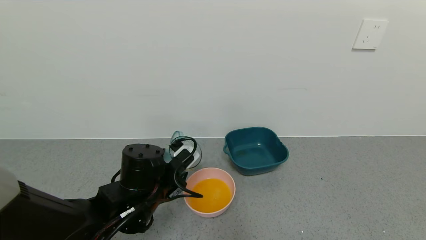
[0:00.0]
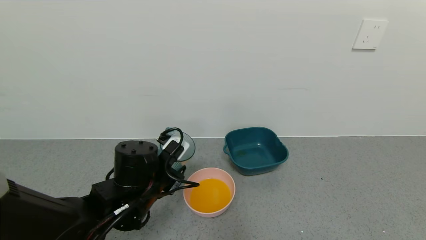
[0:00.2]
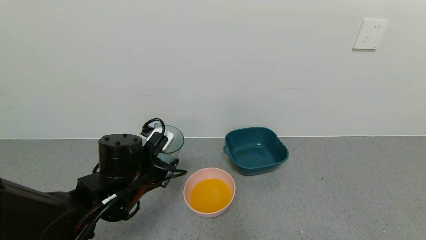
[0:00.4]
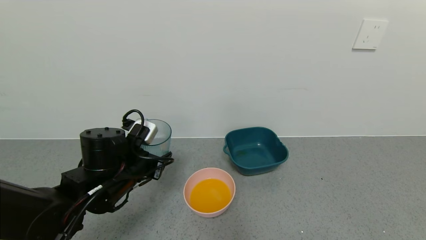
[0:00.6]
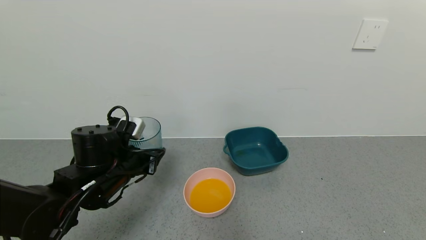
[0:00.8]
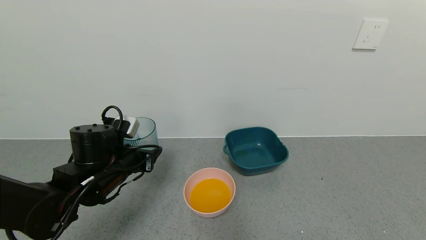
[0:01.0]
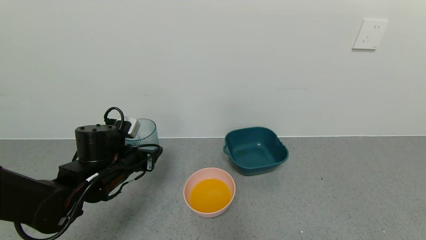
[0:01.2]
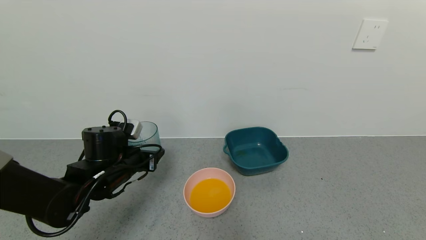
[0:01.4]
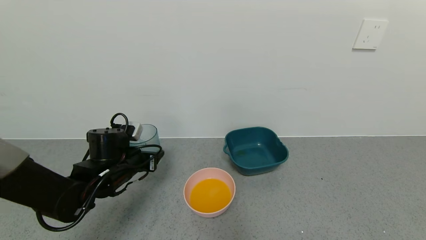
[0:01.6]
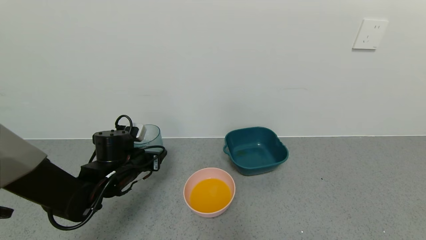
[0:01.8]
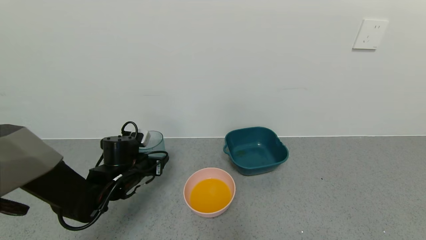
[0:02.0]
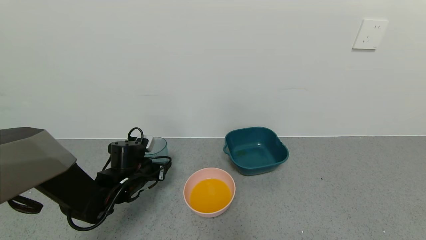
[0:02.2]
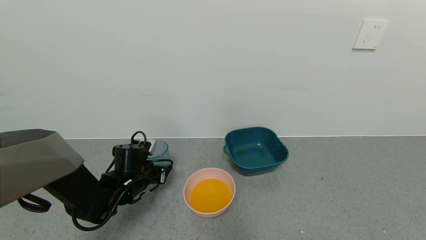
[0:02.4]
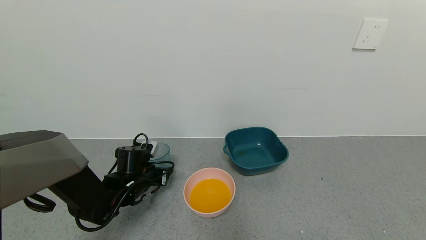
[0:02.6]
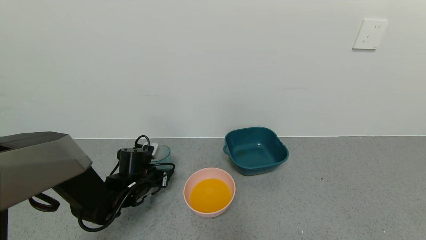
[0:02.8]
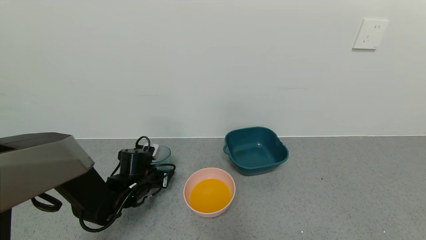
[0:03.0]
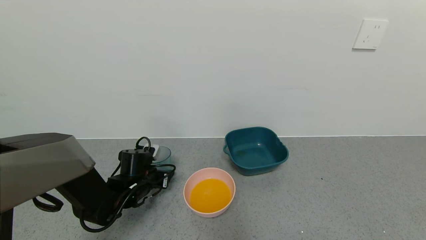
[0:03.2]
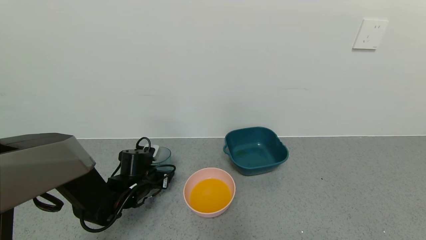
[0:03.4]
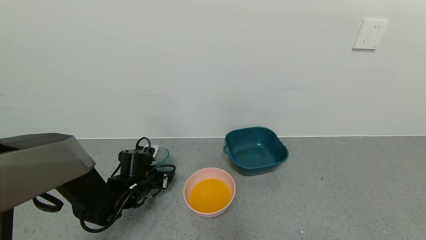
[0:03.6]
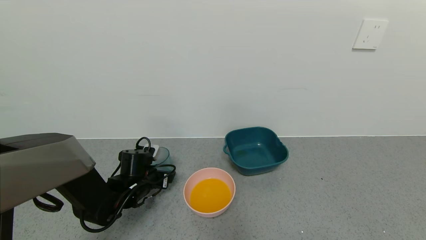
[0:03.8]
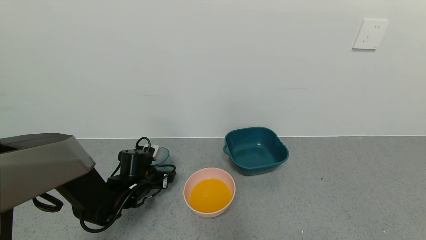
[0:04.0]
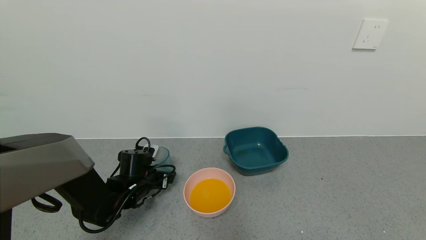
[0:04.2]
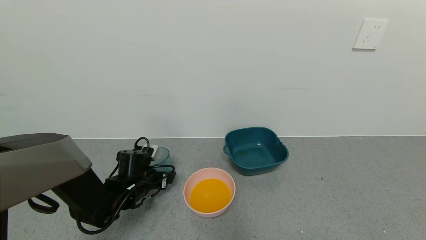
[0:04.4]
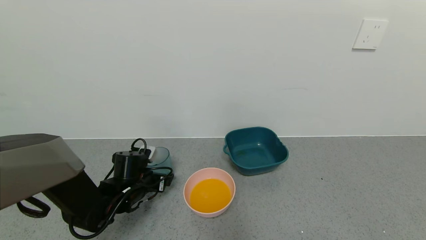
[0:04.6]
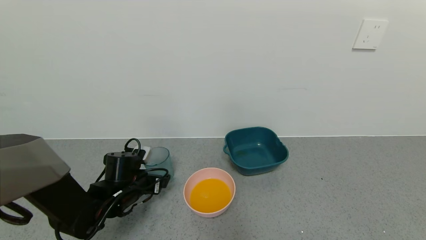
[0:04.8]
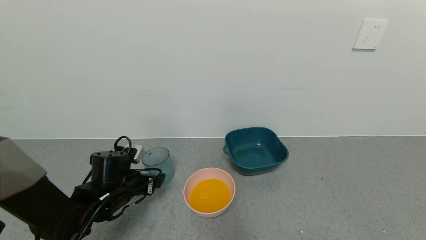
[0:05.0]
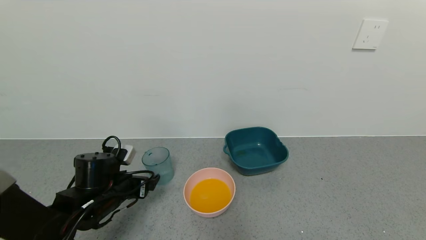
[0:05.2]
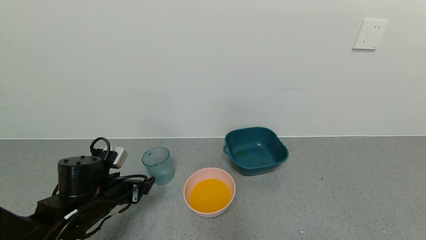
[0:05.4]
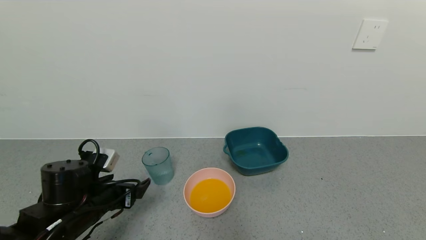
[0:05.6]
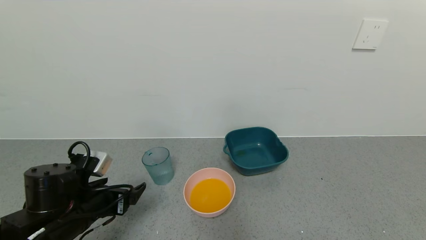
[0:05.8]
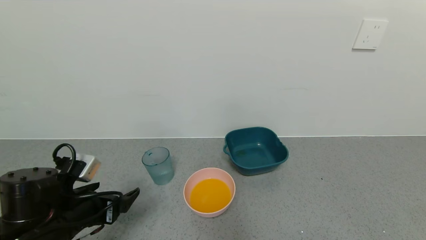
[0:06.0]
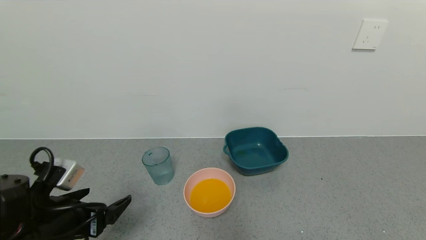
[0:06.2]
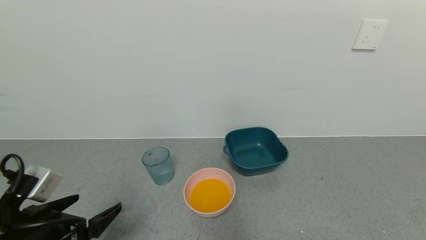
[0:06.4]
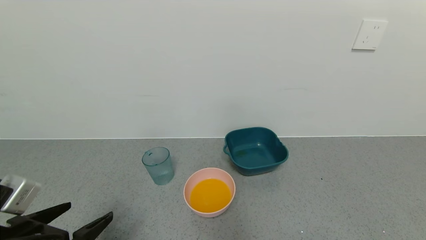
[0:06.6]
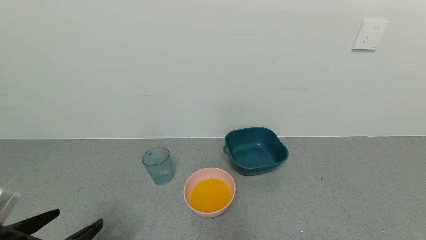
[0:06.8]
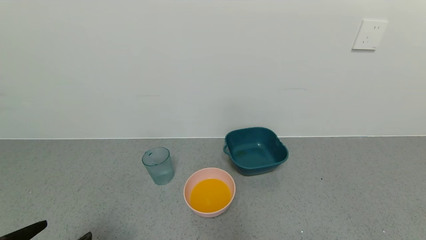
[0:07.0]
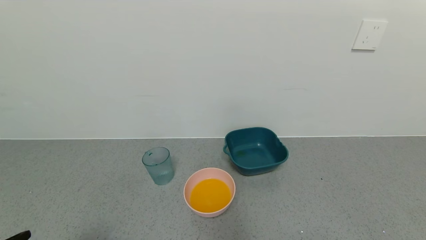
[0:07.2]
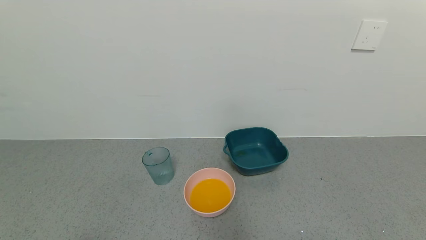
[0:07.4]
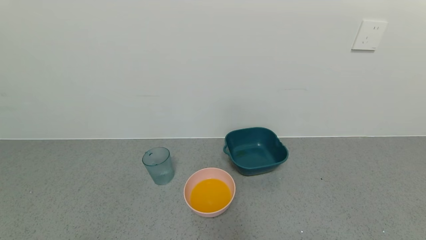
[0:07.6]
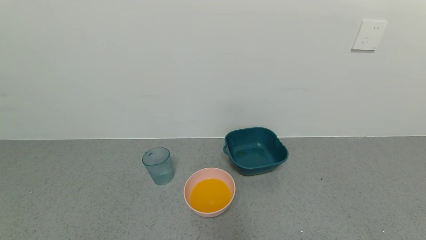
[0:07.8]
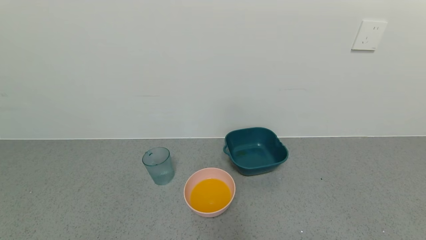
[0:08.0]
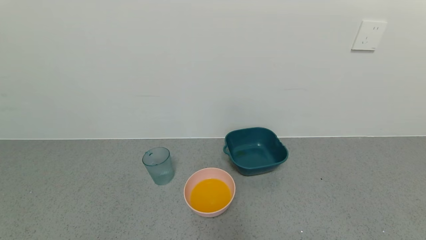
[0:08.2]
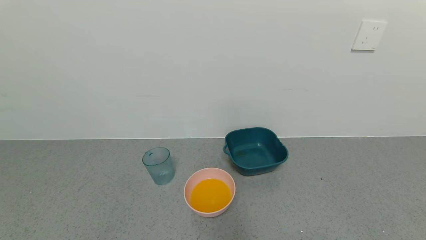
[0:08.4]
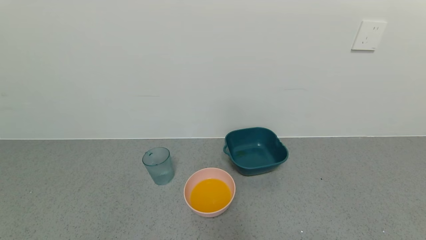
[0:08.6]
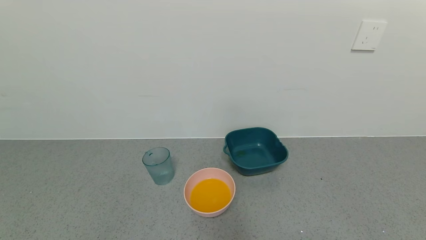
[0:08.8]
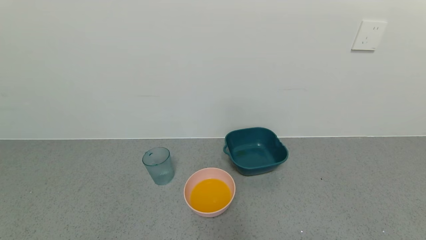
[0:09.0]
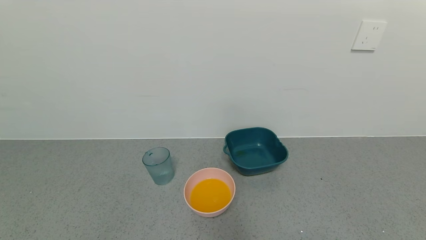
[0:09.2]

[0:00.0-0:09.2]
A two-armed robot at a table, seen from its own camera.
Task of the whole recording: use a gripper to pick up the cup and pour the liquid into a bowl or tray.
Step, 0:00.0 to 0:05.0: Place the glass cup with the left gripper.
0:00.0 to 0:01.6: The left gripper moves to the left and forward, some 10 cm.
0:01.6 to 0:03.0: The left gripper moves downward, some 10 cm.
0:03.0 to 0:04.6: The left gripper opens.
0:04.6 to 0:06.2: The left gripper travels backward and upward by some 20 cm.
0:06.2 to 0:07.6: The left gripper heads backward, covering about 15 cm.

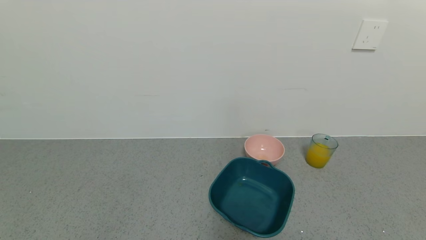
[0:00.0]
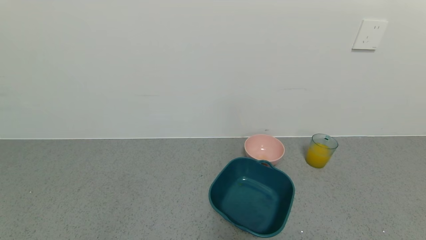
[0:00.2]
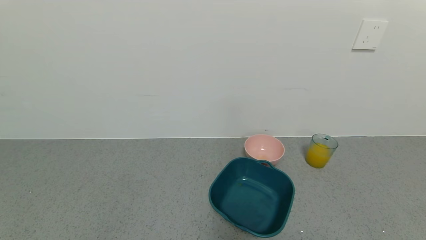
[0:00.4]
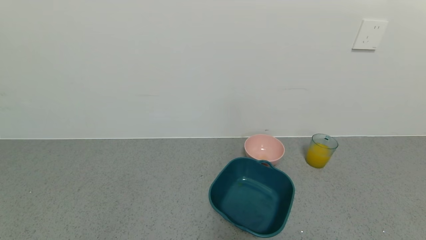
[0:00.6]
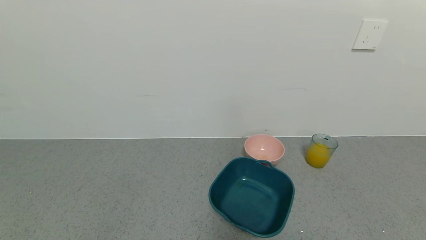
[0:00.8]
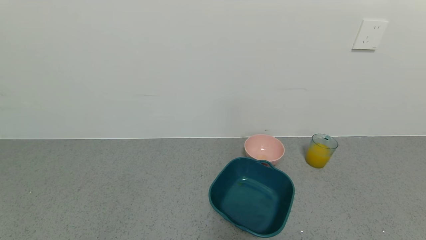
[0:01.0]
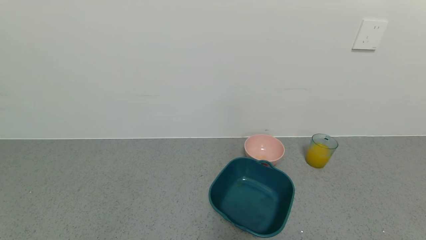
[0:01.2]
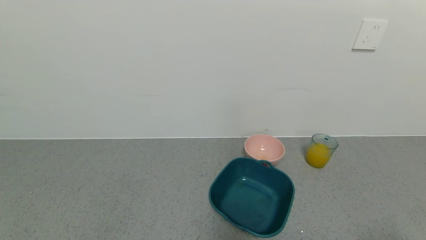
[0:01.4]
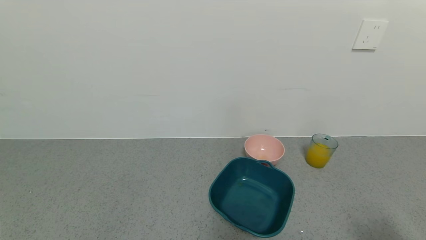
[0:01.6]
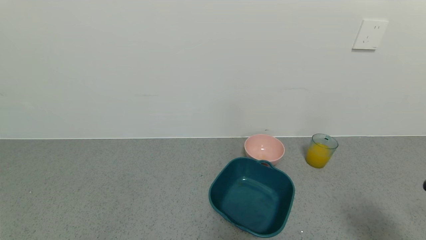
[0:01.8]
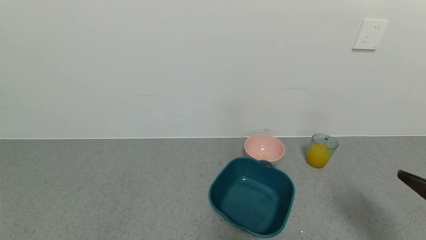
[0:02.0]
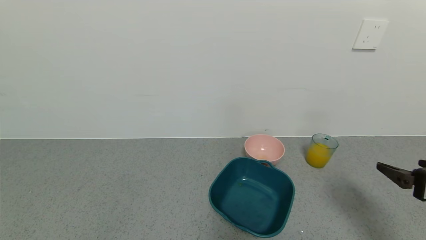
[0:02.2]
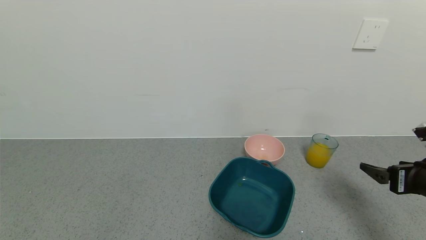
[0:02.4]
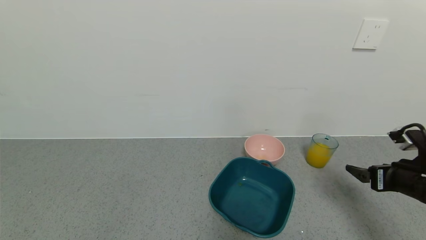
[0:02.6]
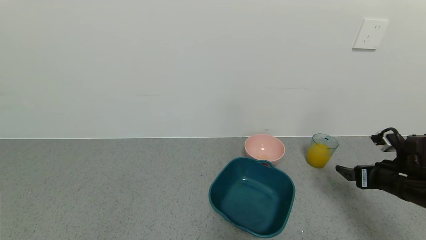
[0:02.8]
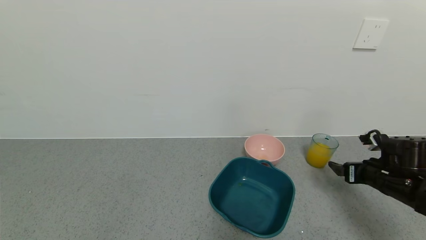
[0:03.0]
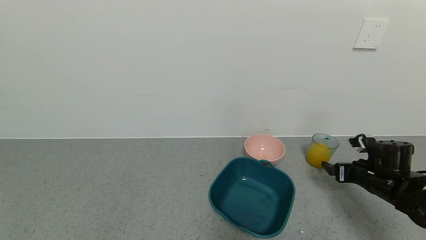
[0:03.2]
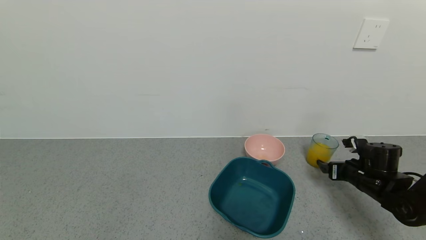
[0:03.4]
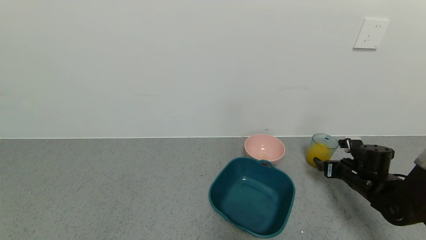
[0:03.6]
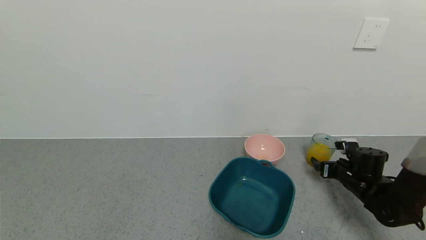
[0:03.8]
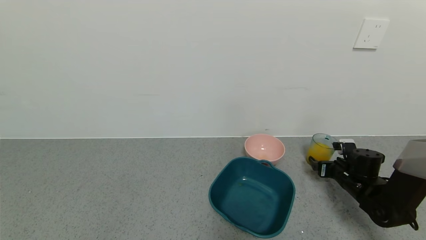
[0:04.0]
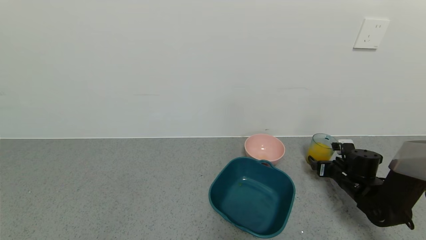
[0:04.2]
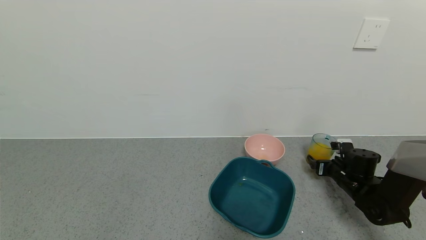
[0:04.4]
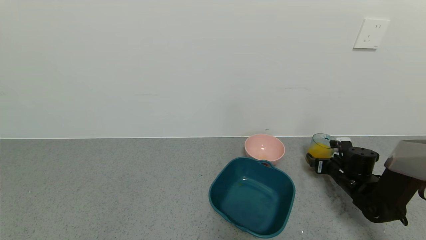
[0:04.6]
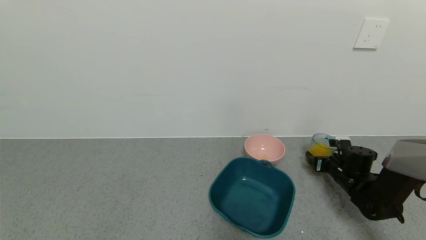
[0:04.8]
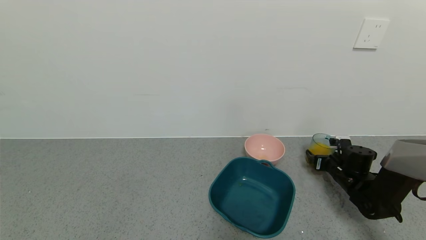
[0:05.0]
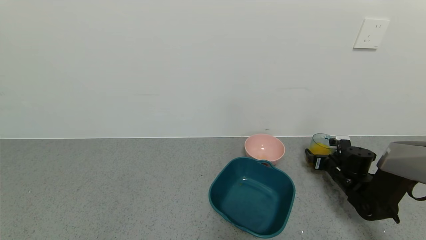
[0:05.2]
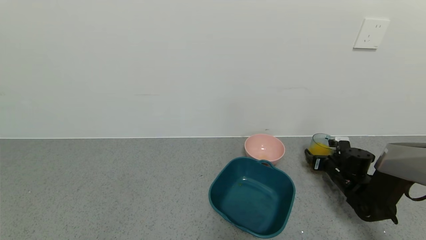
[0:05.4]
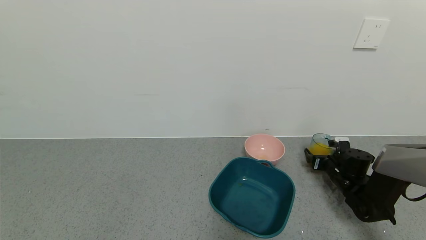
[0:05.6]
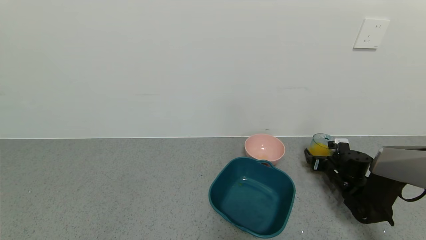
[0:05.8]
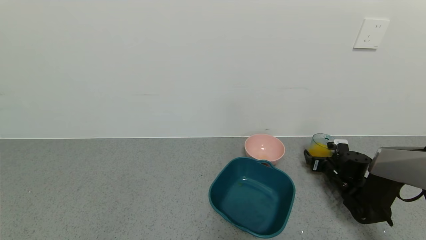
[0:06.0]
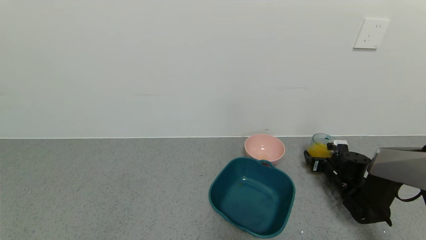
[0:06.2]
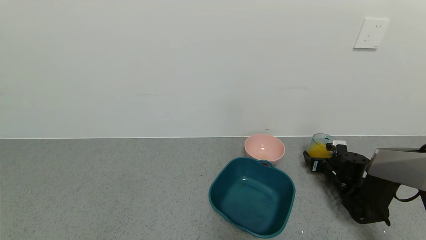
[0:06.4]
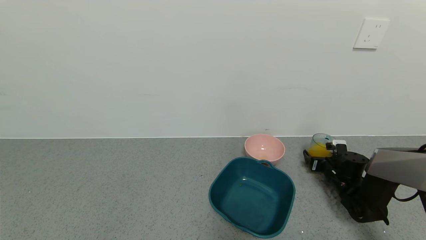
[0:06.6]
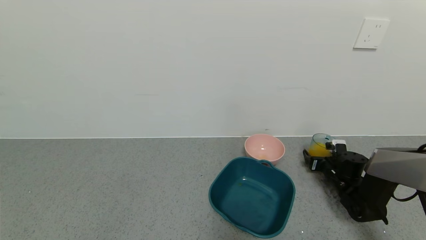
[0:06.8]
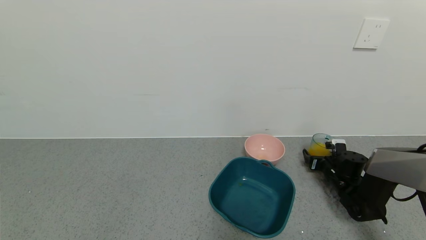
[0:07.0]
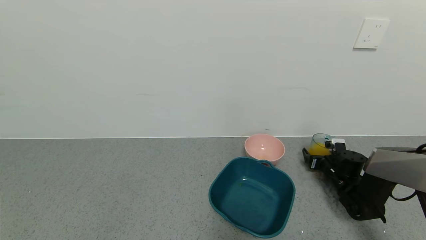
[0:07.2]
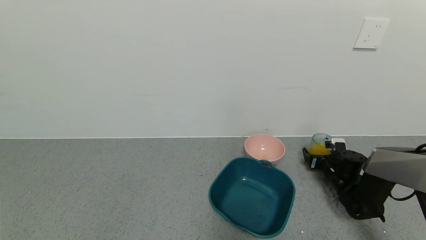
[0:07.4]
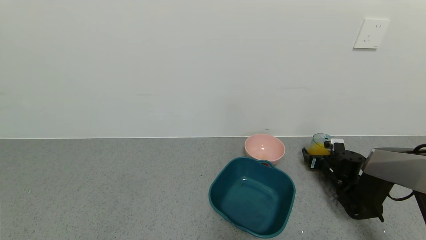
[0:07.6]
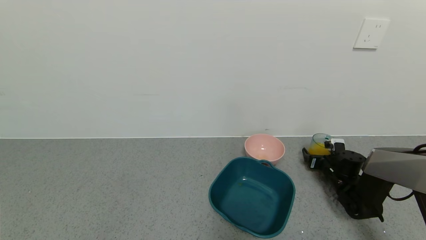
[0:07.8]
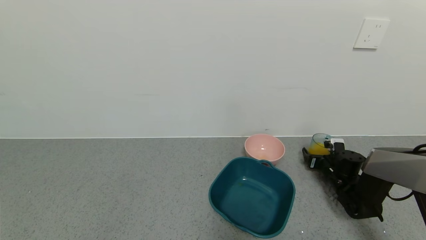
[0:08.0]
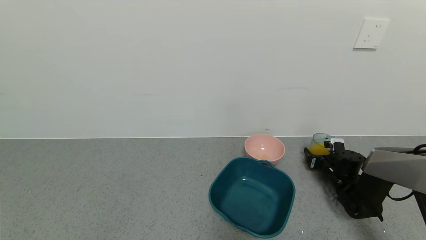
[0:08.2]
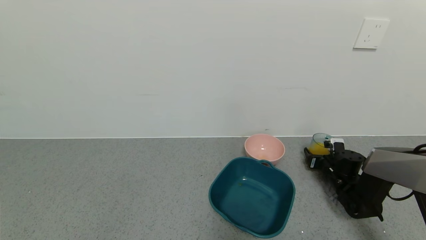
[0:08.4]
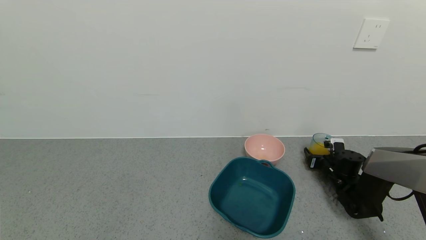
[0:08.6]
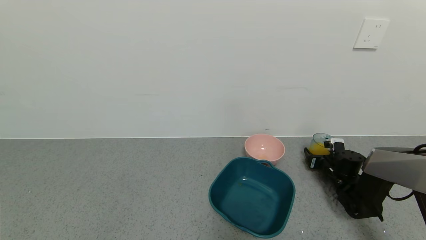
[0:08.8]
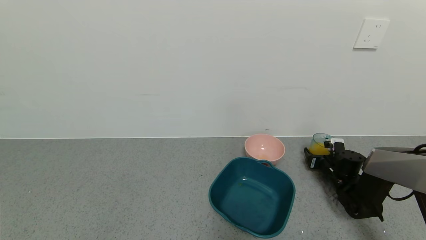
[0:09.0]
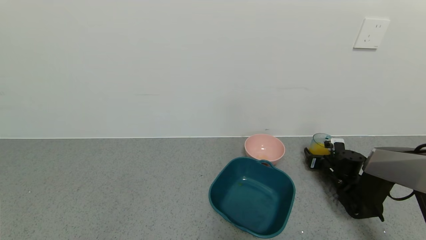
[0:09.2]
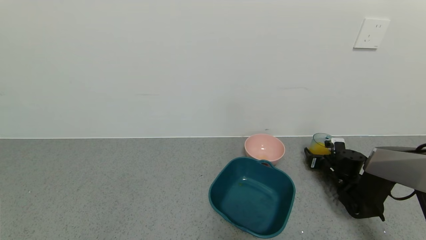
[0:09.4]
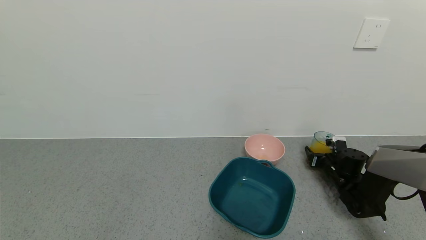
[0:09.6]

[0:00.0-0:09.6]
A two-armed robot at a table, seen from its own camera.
Task of the whole recording: use a gripper to pick up the cup and pour the liquid into a bowl or tray.
0:01.6 to 0:03.2: The right gripper shifts some 30 cm forward and downward.
0:03.2 to 0:04.8: The right gripper shifts approximately 10 cm forward and downward.
0:04.8 to 0:08.0: The grippers move only a little.
0:08.0 to 0:09.6: The right gripper closes.
